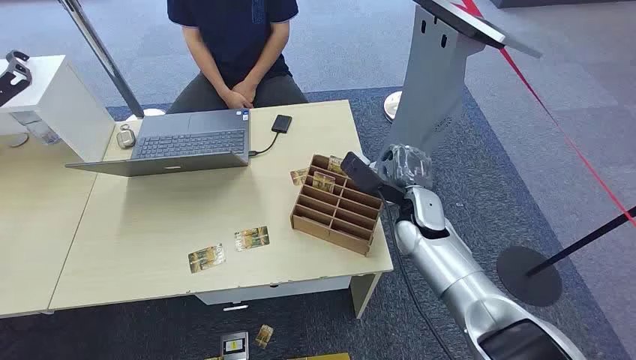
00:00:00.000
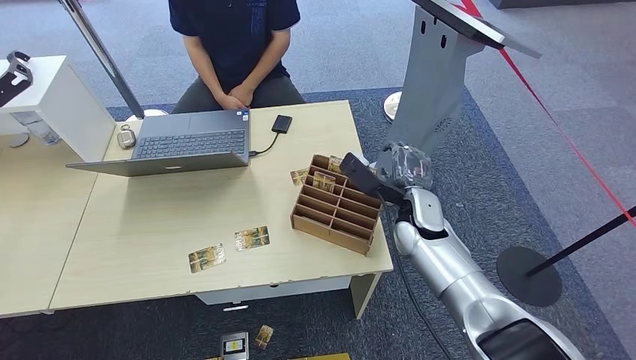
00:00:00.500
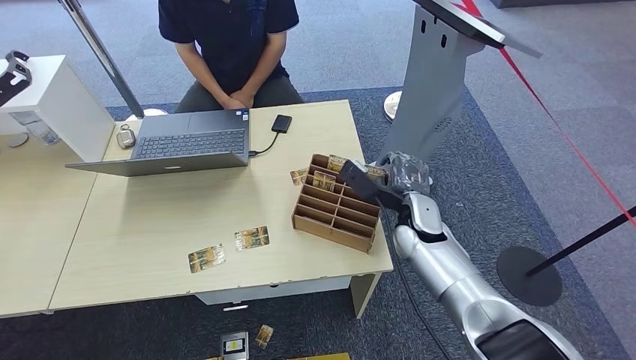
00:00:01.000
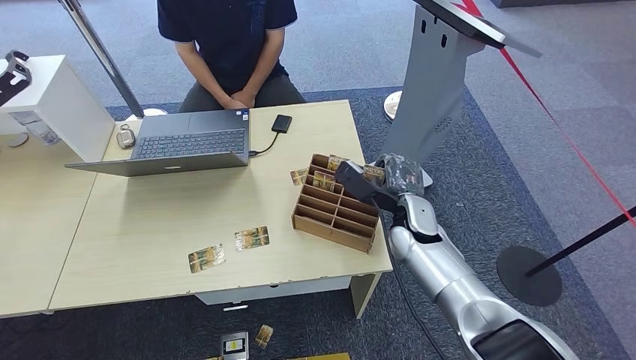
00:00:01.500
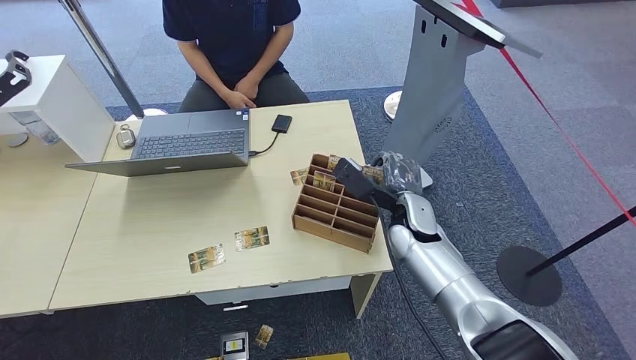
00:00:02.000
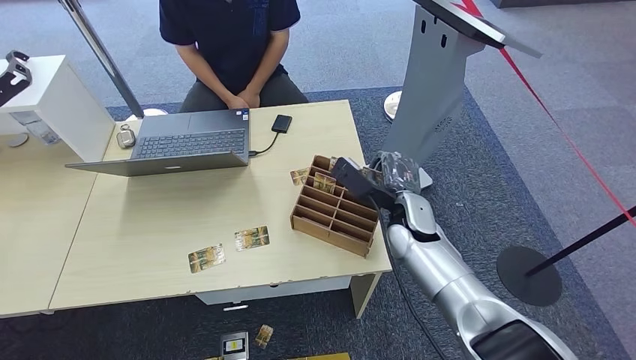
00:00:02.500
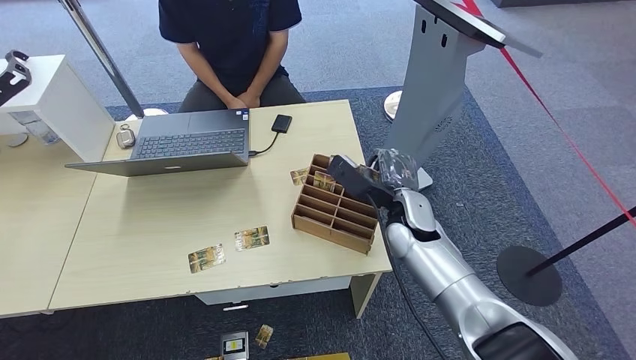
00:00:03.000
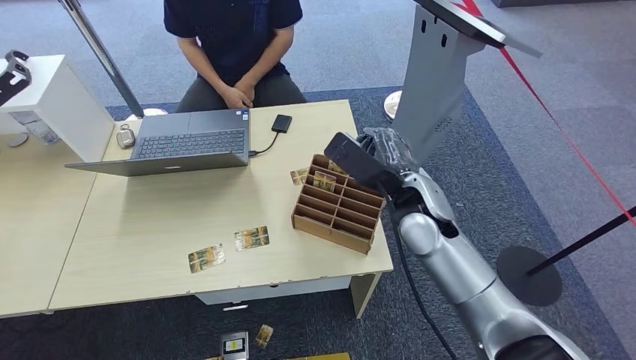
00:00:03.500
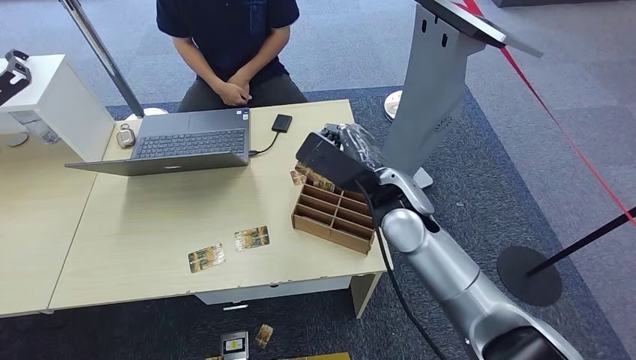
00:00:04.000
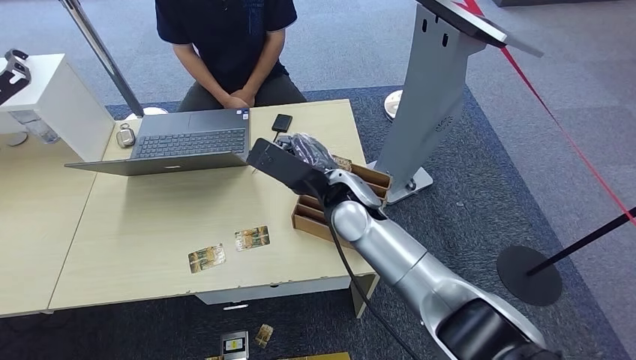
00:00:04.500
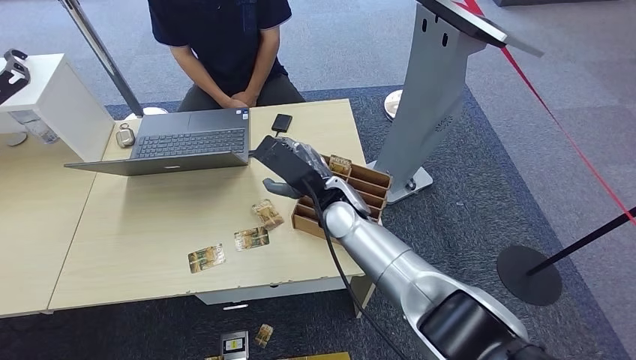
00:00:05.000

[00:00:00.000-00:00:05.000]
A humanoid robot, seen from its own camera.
Step, 00:00:00.000 to 00:00:03.000: Pick up the room card from the card holder.
Step, 00:00:04.000 to 00:00:05.000: Hand the room card to the target.
00:00:02.500 to 00:00:05.000: The right hand goes approximately 15 cm to the left and upward.
